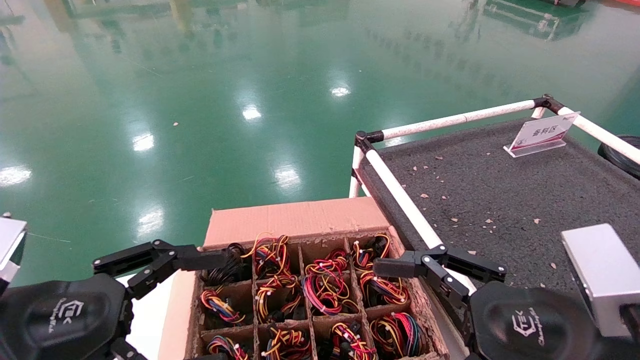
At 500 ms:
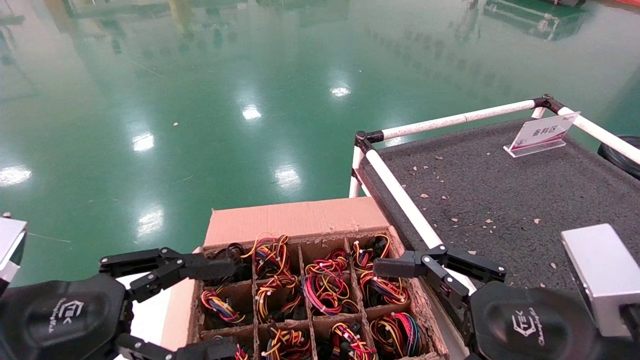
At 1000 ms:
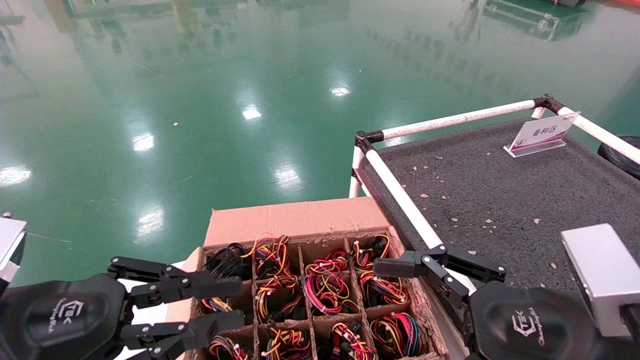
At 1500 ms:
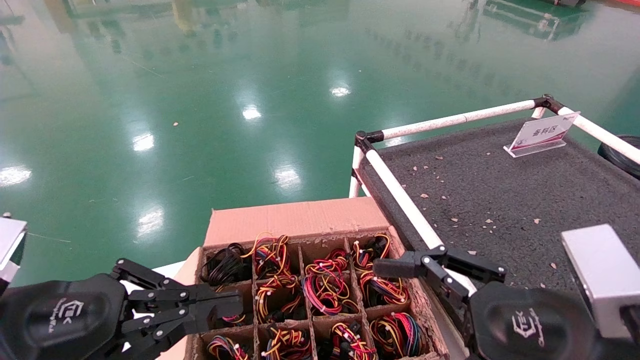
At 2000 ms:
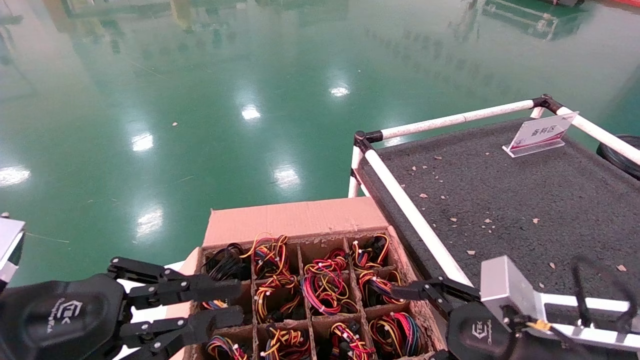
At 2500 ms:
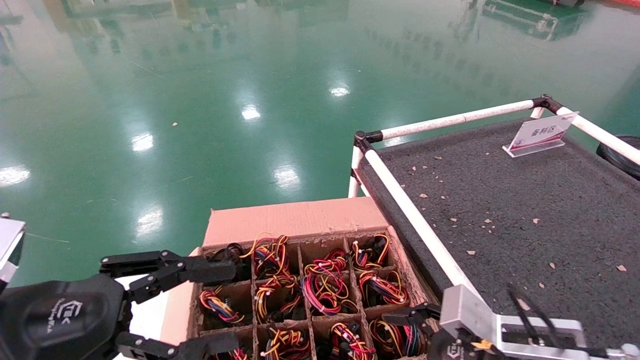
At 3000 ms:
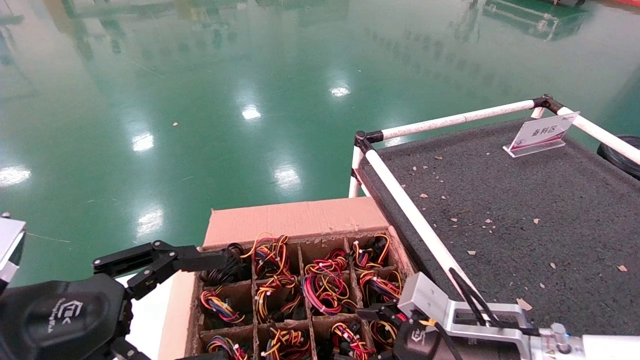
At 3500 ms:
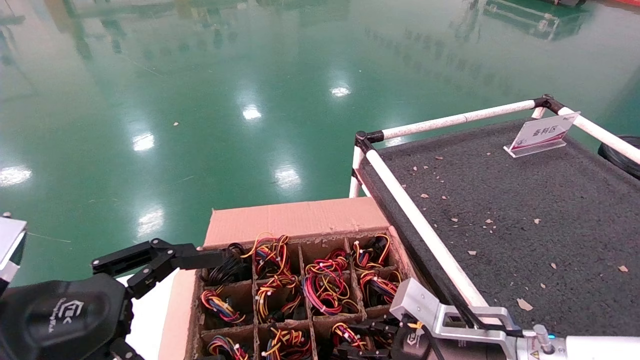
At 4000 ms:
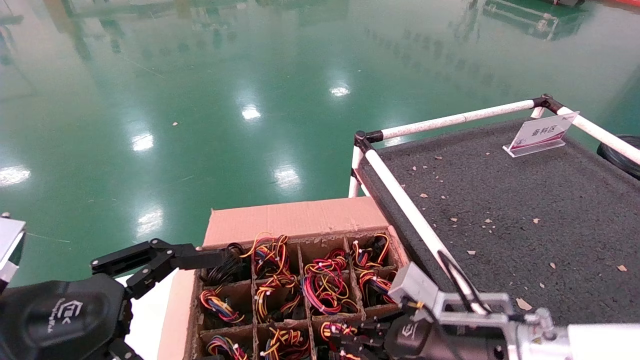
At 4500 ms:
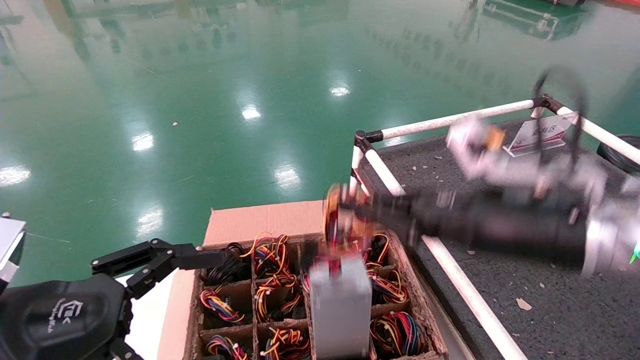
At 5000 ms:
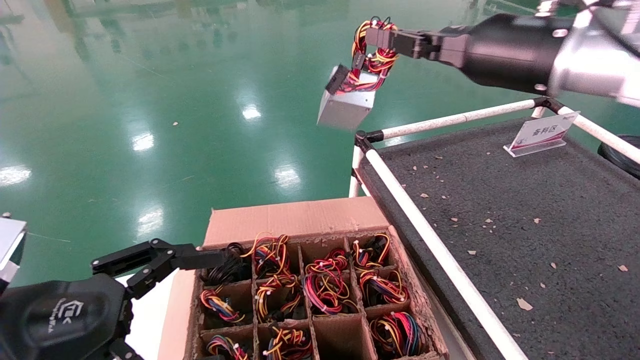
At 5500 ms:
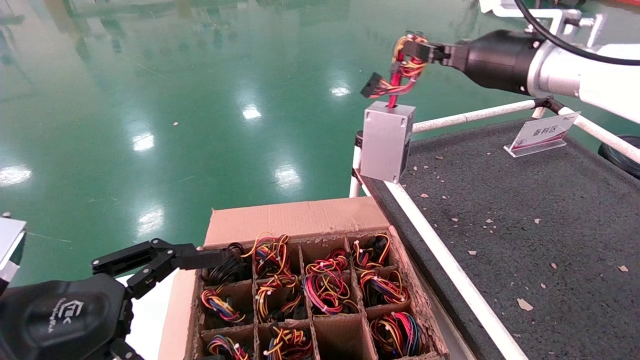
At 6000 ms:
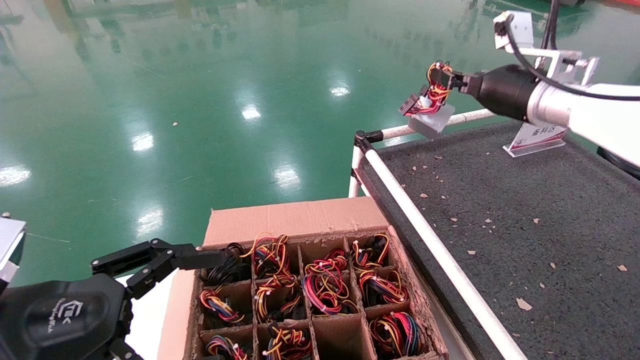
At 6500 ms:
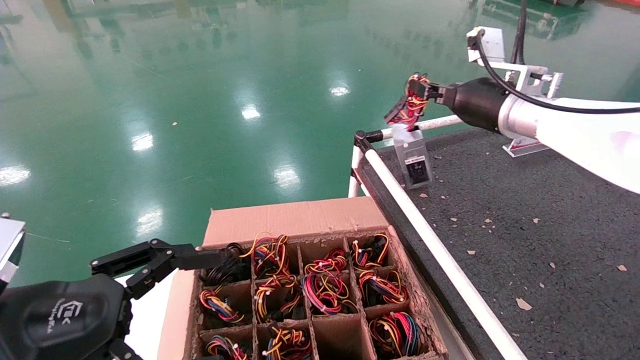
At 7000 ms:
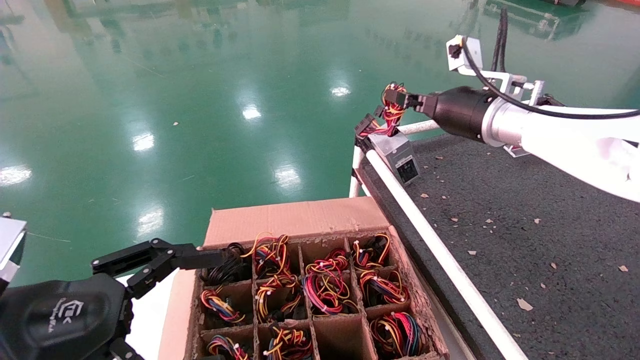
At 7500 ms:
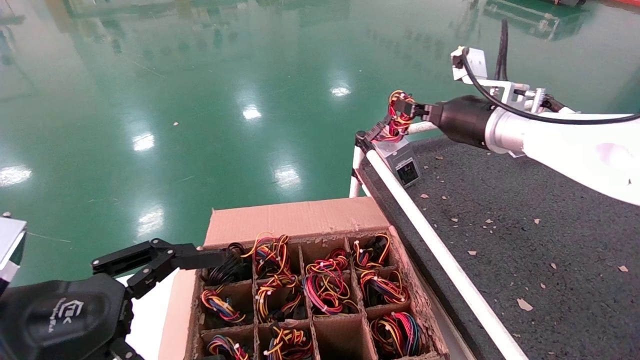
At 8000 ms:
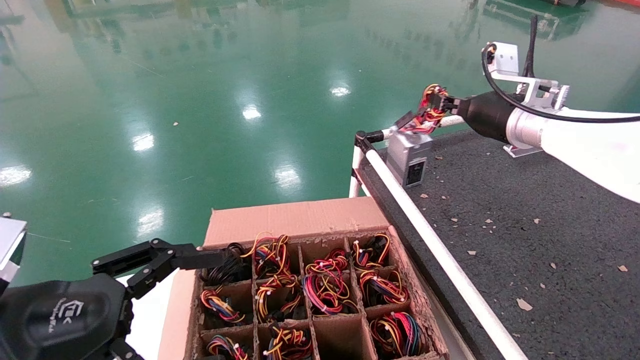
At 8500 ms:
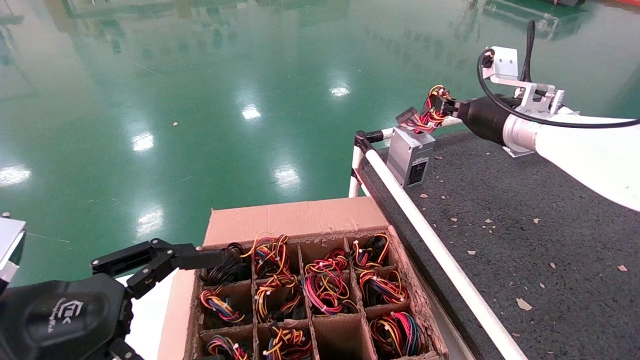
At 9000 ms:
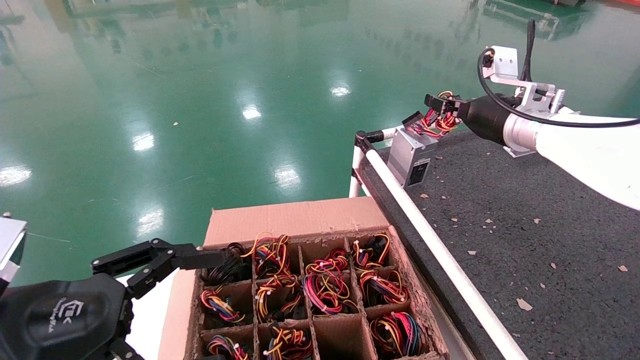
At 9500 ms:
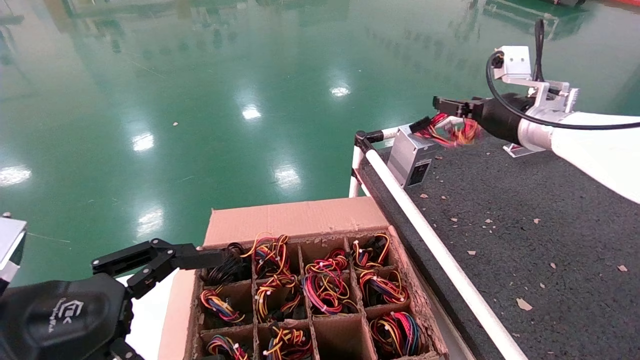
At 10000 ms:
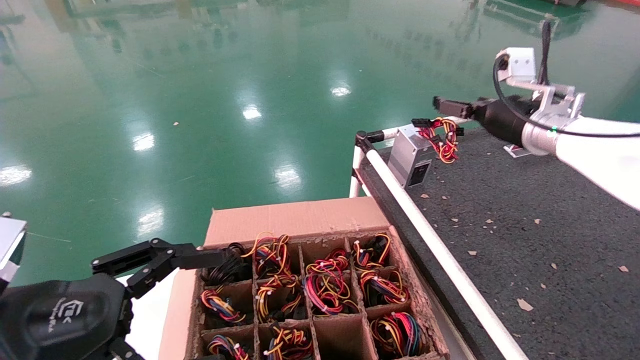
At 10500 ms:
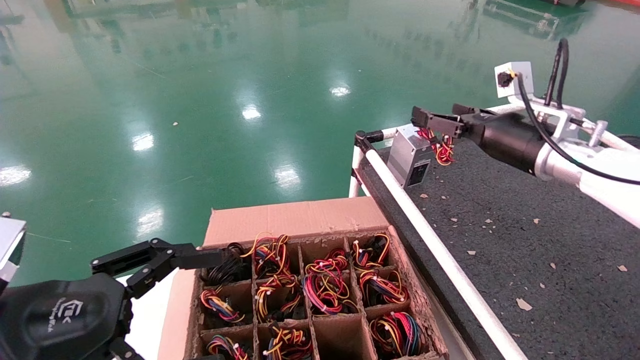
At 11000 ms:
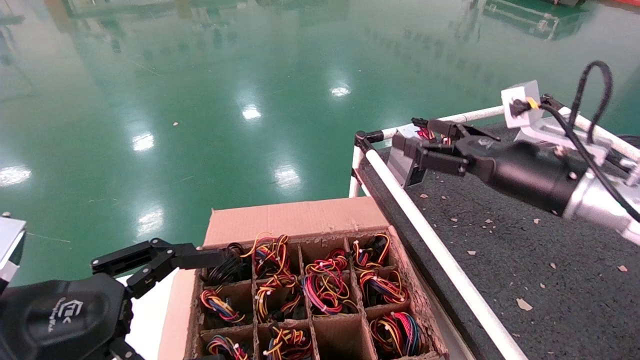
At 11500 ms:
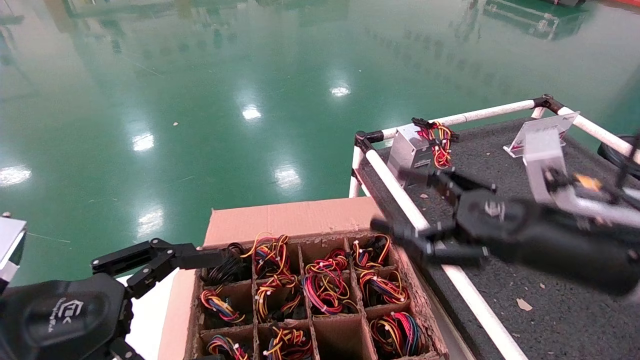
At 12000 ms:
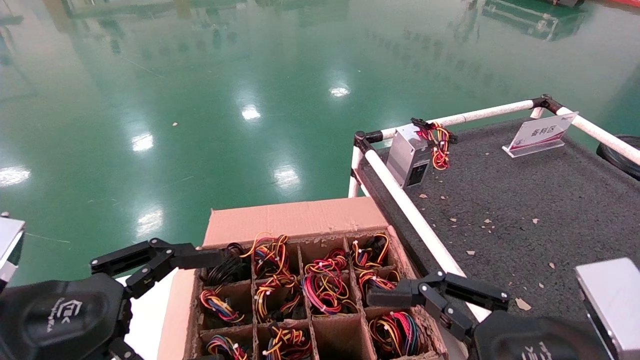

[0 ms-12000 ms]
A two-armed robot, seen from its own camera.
Step, 2500 ms to 3500 ms: Grab and lift the power supply from the large box.
Step, 4000 ms to 9000 ms: Place the power supply on the operating table.
0 ms to 2000 ms: The right gripper moves downward and forward, approximately 10 cm, while the left gripper closes up.
2000 ms to 4000 ms: The right gripper moves to the left and forward, some 10 cm, and closes; the left gripper opens.
4000 ms to 6000 ms: The right gripper goes about 30 cm upward and forward.
6000 ms to 8000 ms: The grippers move only a little.
8000 ms to 10000 ms: The right gripper opens its fingers.
10000 ms to 12000 ms: The right gripper is displaced backward and downward by some 30 cm.

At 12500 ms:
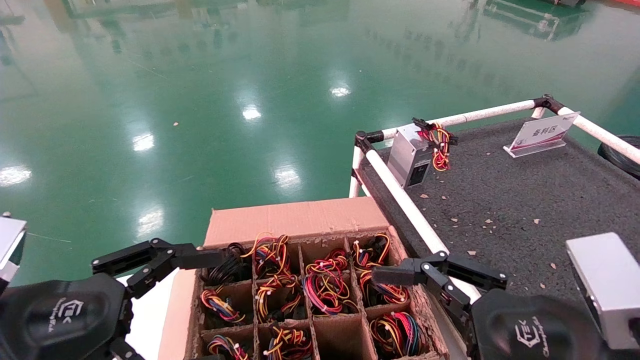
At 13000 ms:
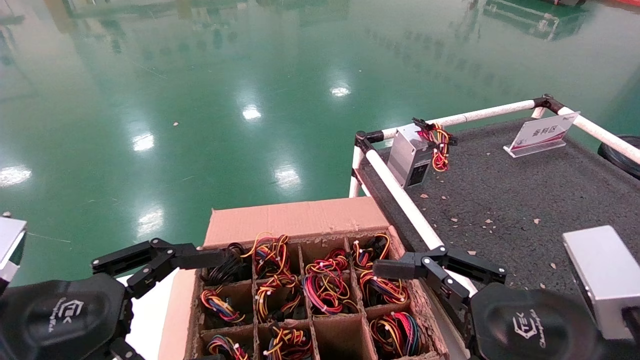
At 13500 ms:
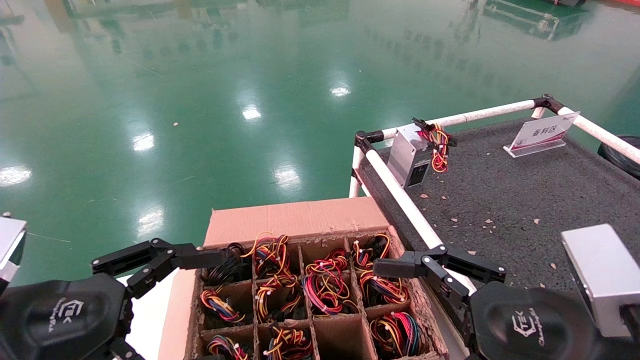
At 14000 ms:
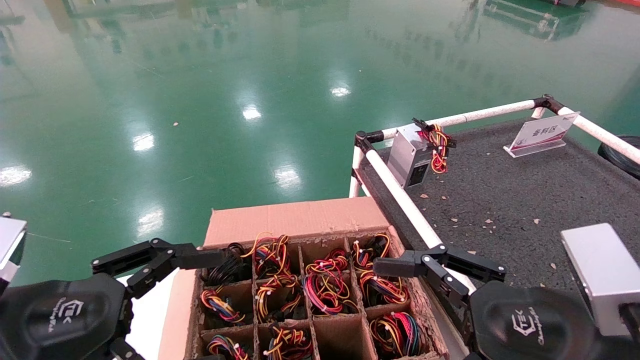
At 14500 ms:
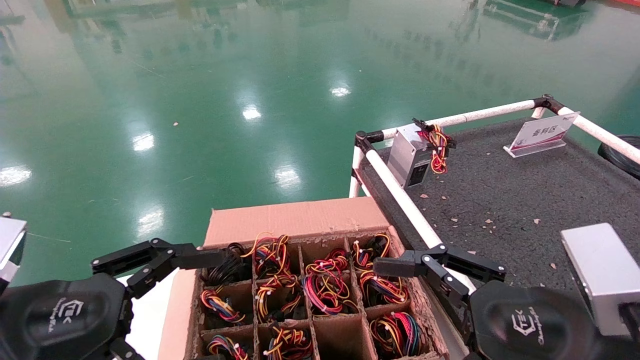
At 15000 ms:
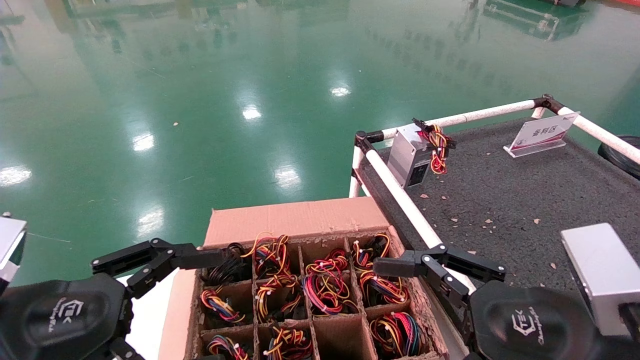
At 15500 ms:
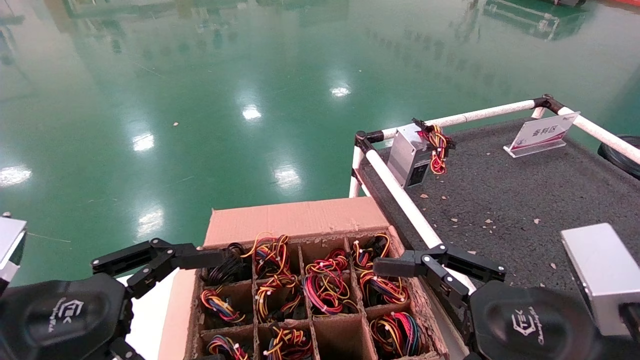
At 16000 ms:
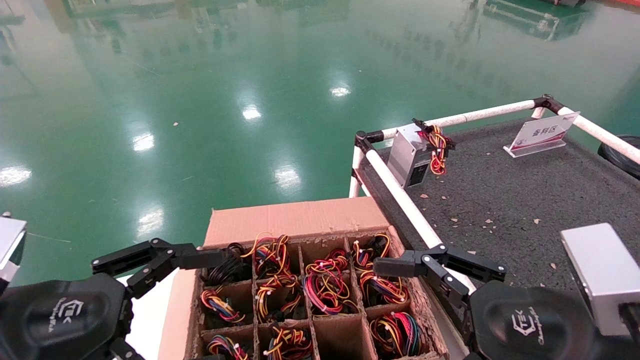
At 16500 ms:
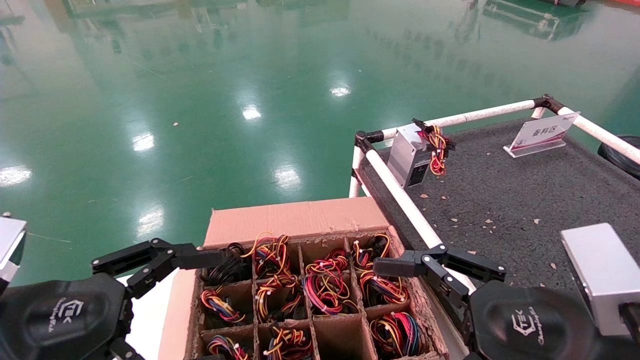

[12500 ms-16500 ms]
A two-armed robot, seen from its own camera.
12500 ms to 16500 ms: Both grippers stay put.
